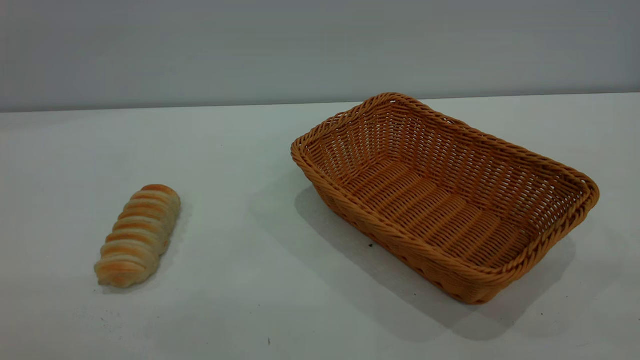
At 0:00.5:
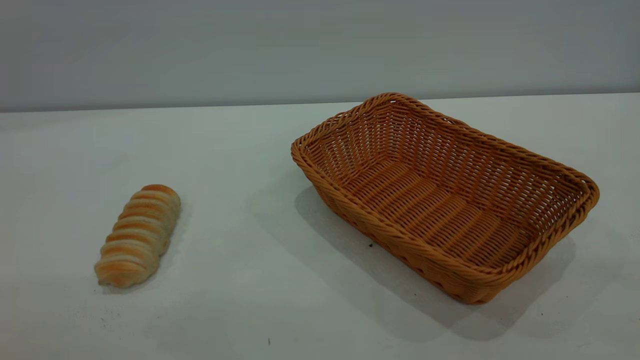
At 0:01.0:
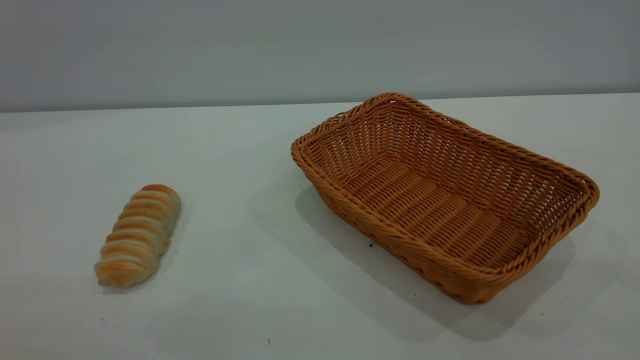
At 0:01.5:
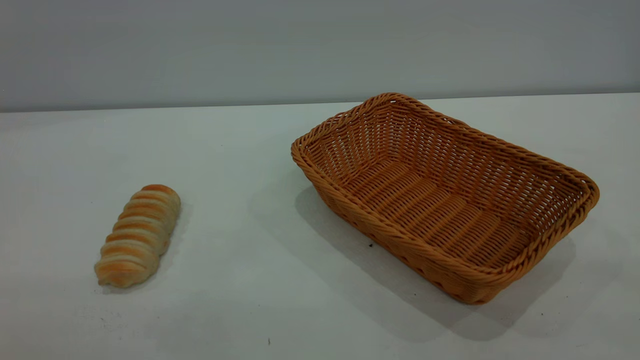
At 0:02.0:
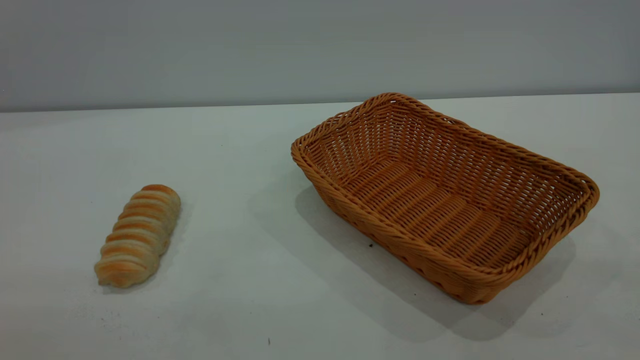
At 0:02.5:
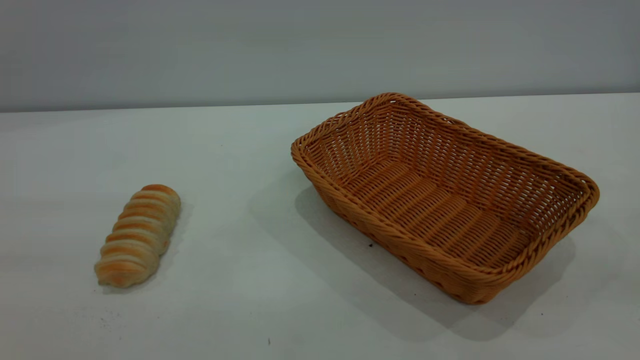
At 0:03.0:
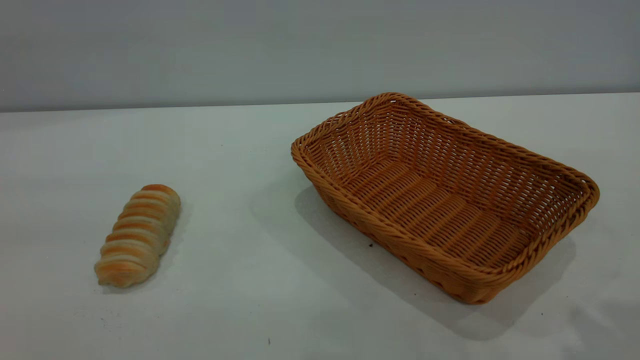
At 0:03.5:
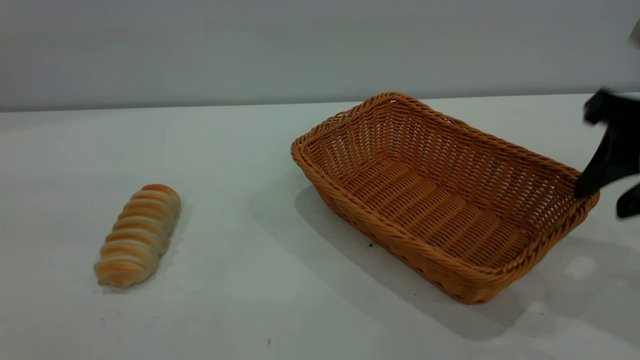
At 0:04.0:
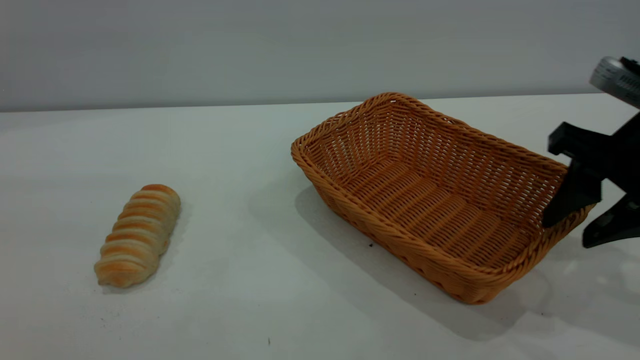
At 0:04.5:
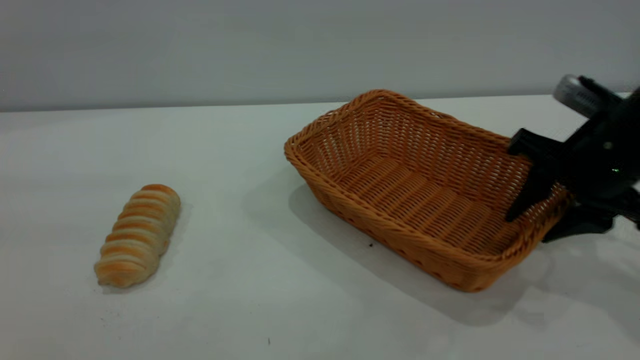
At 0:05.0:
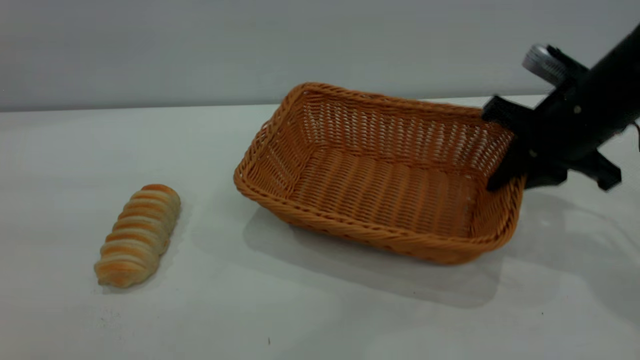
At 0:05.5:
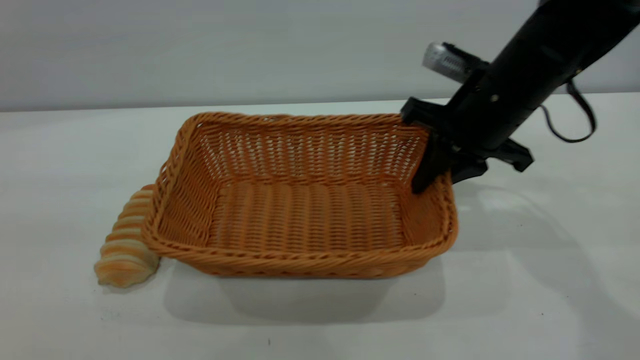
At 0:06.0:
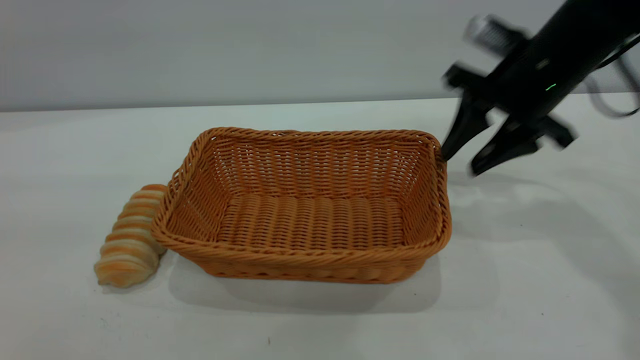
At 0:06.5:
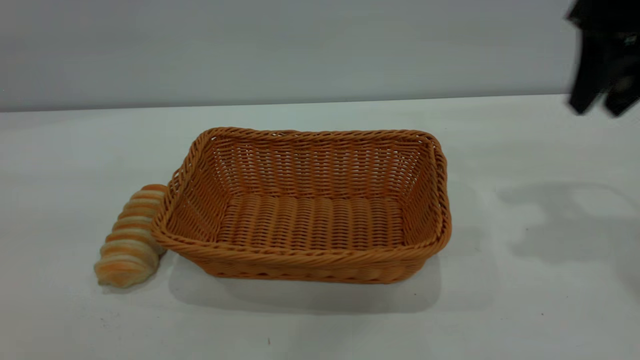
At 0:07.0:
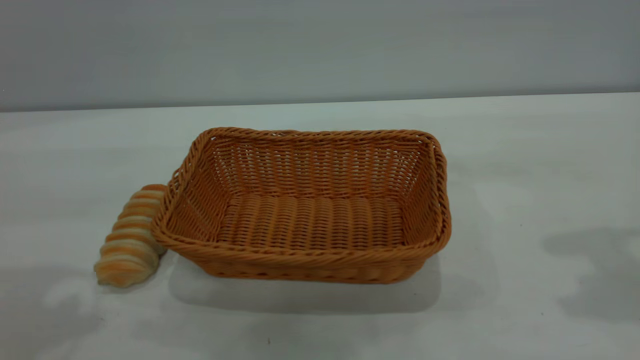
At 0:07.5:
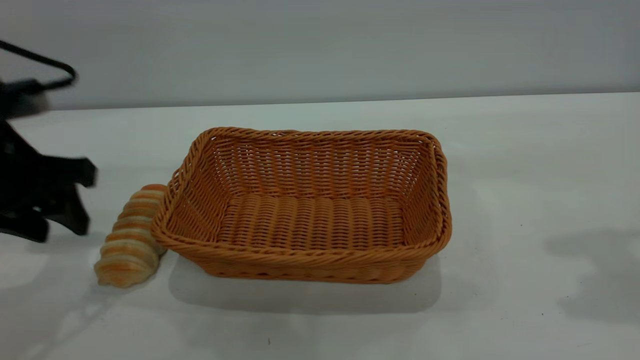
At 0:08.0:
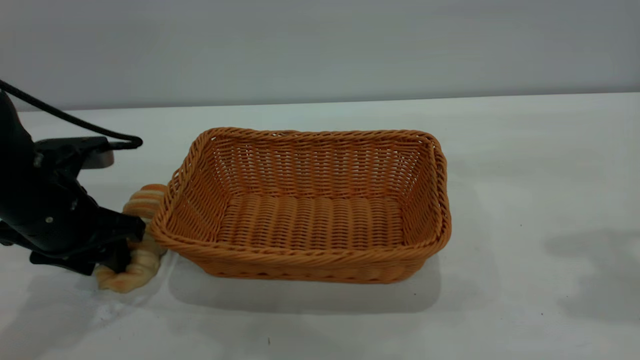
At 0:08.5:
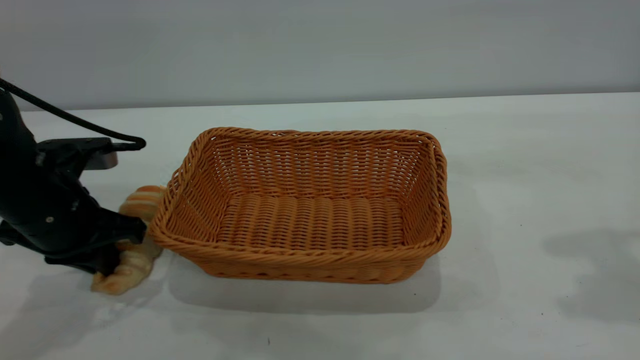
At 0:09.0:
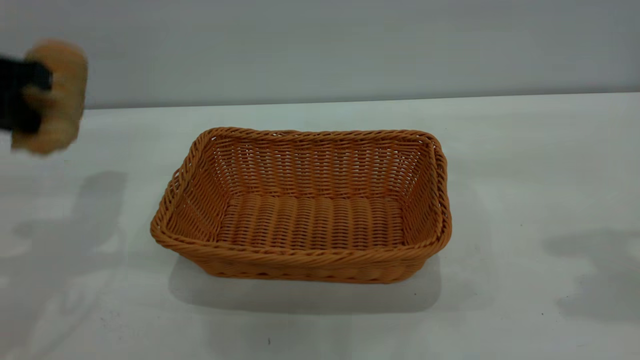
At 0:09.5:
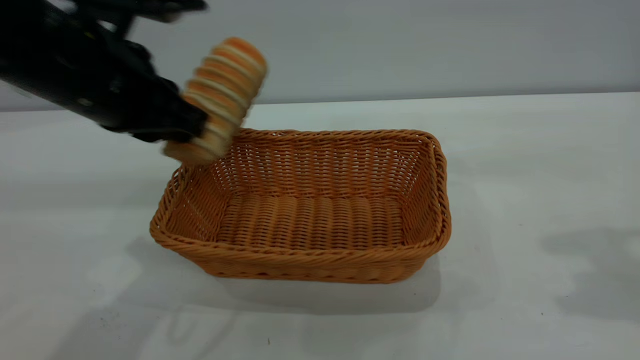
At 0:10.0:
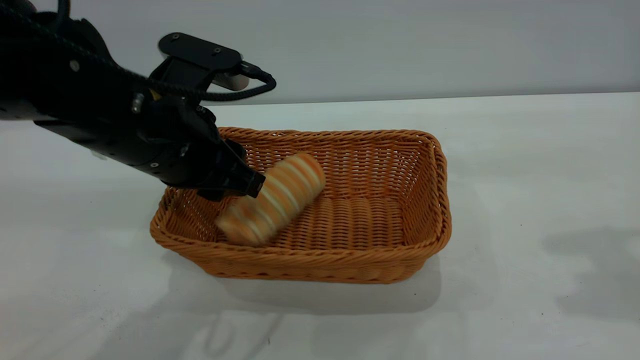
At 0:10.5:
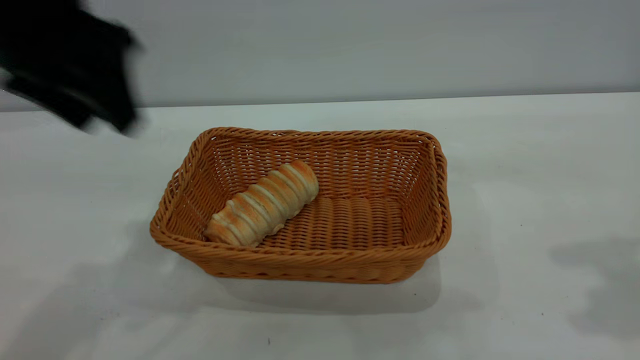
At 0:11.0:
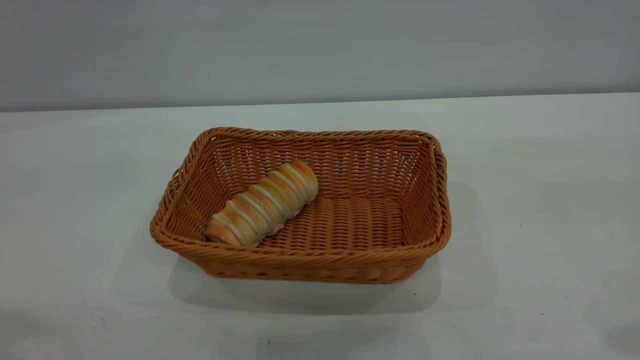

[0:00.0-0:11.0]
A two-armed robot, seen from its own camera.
Task of the whole recording: One hand grasps the yellow basket and places it in the middle of the table, while the other hand picks up the long bread and puts it into the yellow basket.
Step, 0:00.0 to 0:05.5: Move the basket to the center of view.
Step, 0:09.0 to 0:10.0: place the bread into the basket.
0:02.0 to 0:03.5: The right gripper moves forward and downward, roughly 30 cm, and opens up.
0:03.5 to 0:05.5: The right gripper is displaced forward and to the left by about 15 cm, and closes.
0:05.5 to 0:07.5: The left gripper shifts approximately 30 cm downward and forward. Meanwhile the right gripper goes some 25 cm upward, to the right and backward, and opens up.
0:07.5 to 0:09.0: The left gripper goes roughly 10 cm upward, and closes.
0:09.0 to 0:11.0: The right gripper travels backward by approximately 10 cm. The left gripper shifts some 25 cm upward and backward, and opens its fingers.

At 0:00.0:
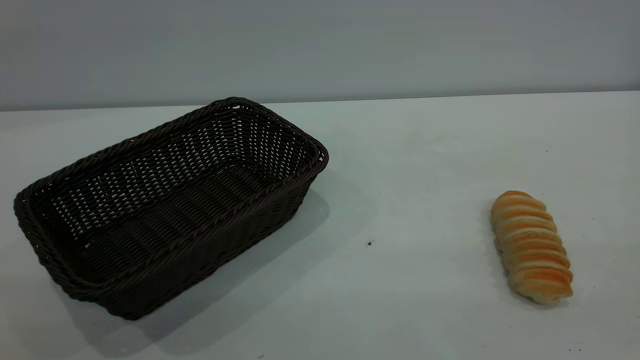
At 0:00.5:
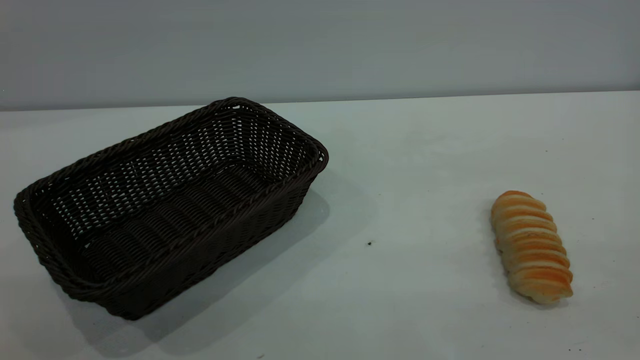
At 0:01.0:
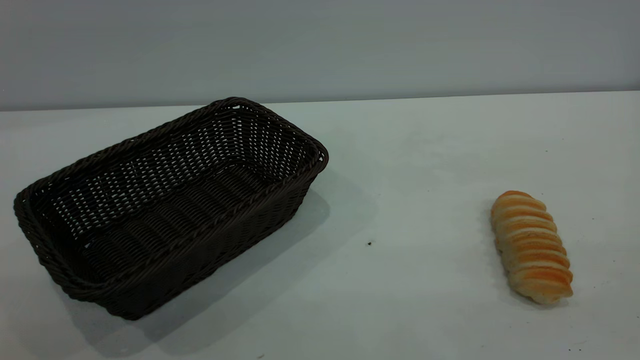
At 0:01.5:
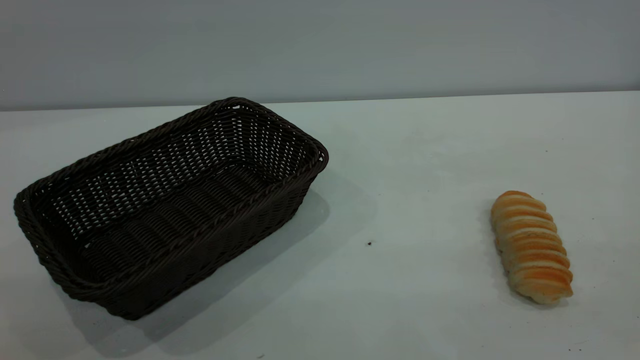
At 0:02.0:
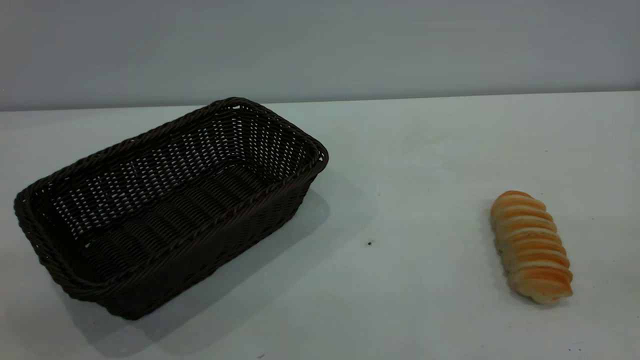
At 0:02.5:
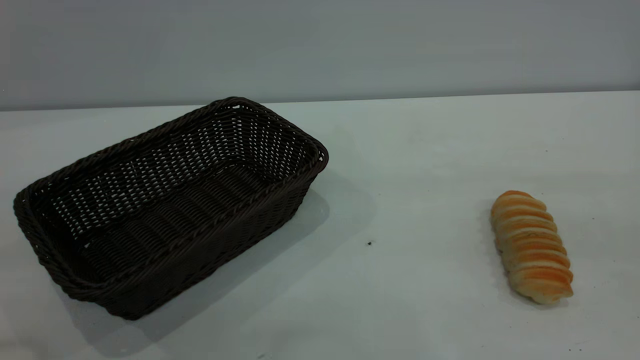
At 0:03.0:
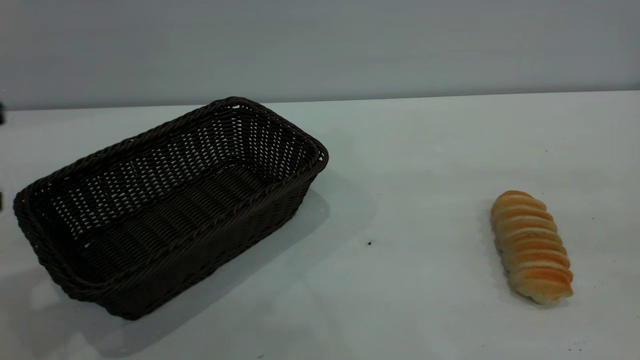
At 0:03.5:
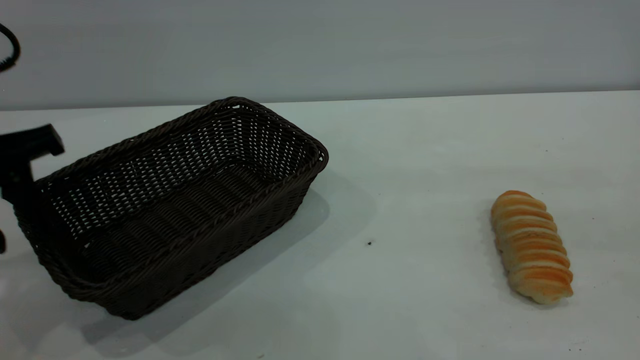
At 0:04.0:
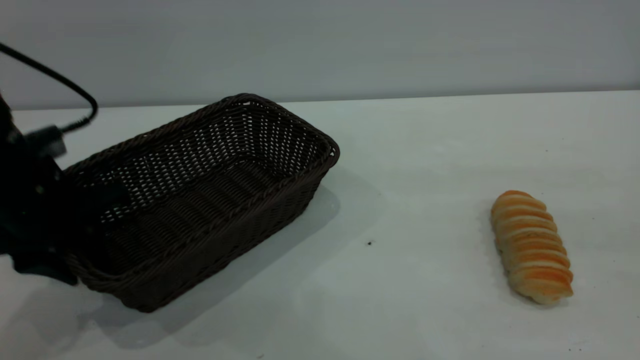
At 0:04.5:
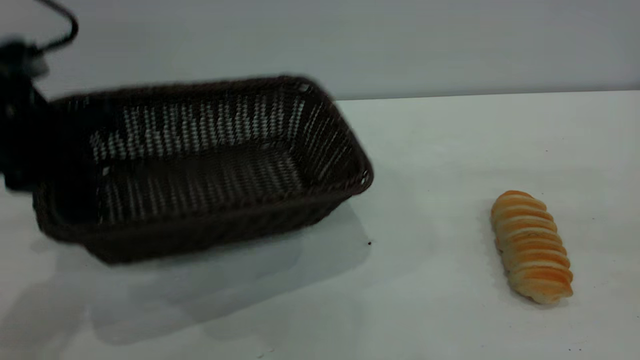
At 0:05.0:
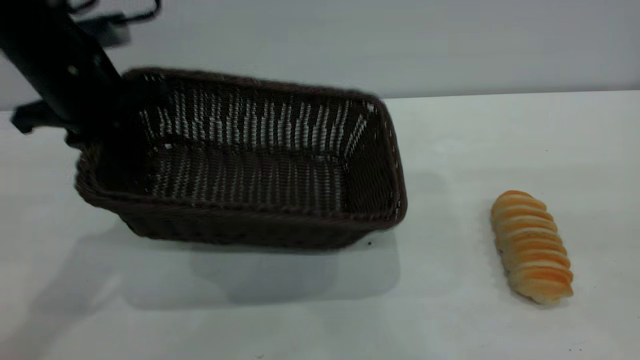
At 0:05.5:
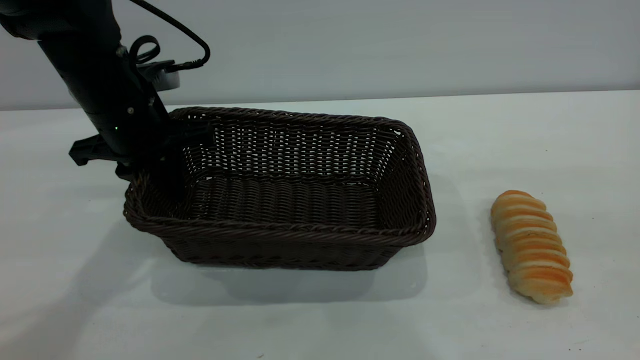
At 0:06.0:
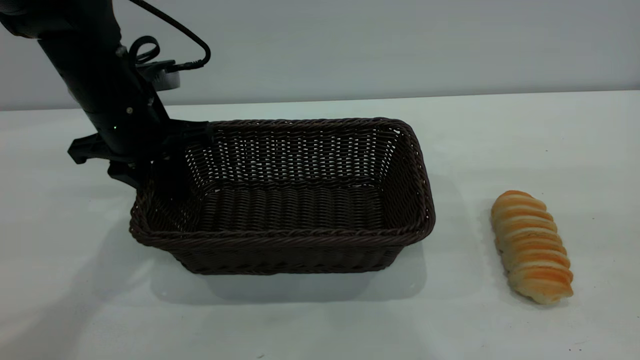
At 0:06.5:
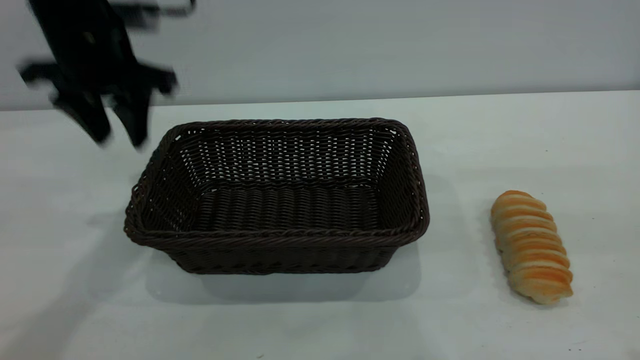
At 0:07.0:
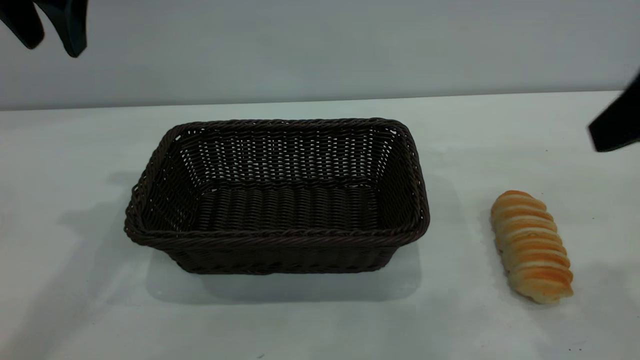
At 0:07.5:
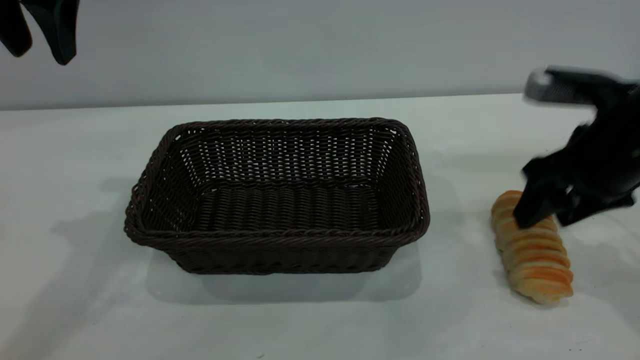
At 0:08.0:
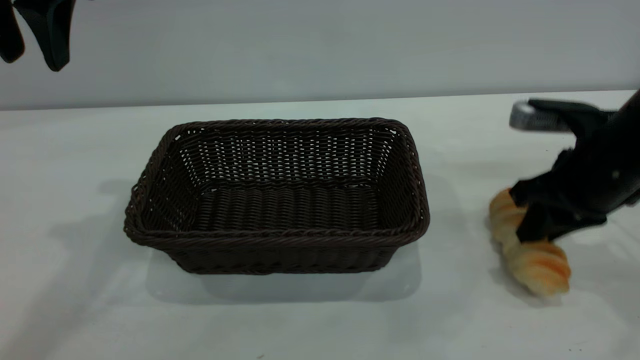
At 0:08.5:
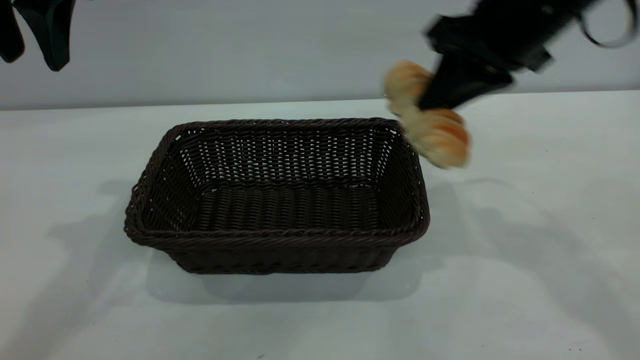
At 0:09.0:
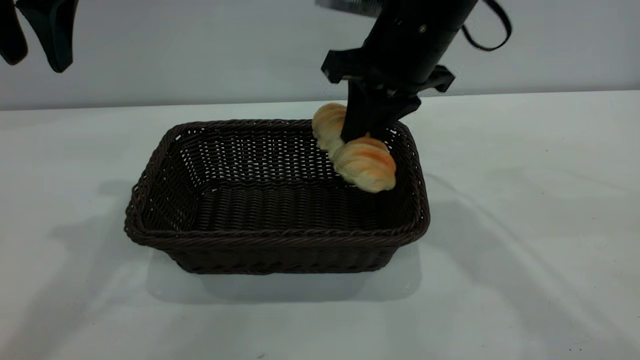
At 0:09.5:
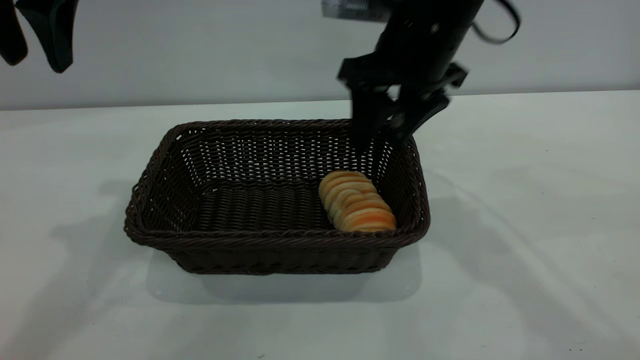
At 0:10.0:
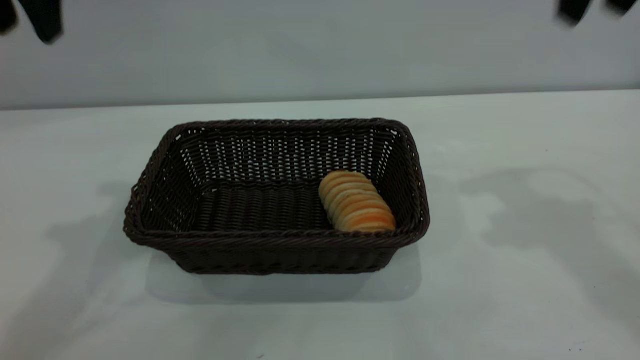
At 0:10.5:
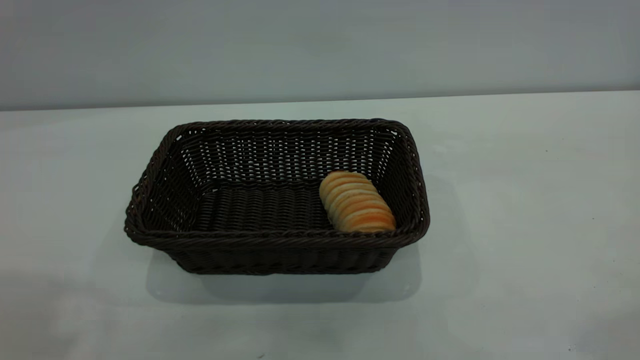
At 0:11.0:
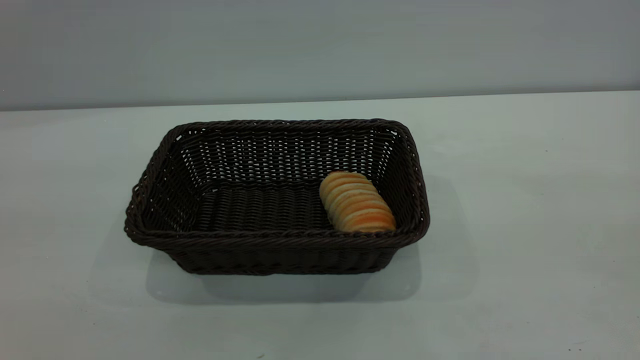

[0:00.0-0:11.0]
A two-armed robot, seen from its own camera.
Task of the whole recording: One hand grasps the black basket and places it in the middle of the table, while the other hand picks up the long bread and puts it into the black basket.
Step, 0:00.0 to 0:06.5: Move the basket to the center of view.
Step, 0:08.5 to 0:09.5: place the bread into the basket.
0:02.0 to 0:03.5: The left gripper heads forward and downward, covering about 35 cm.
0:03.5 to 0:05.5: The left gripper travels forward and to the right by some 15 cm, and closes its fingers.
0:05.5 to 0:07.5: The right gripper heads forward and downward, covering some 30 cm, while the left gripper moves upward, approximately 15 cm, and opens up.
0:07.5 to 0:09.0: The right gripper goes about 20 cm to the left, upward and forward, and closes its fingers.
0:09.0 to 0:11.0: The right gripper is displaced backward, to the right and upward by roughly 40 cm, and opens its fingers. Meanwhile the left gripper travels backward by approximately 30 cm.
